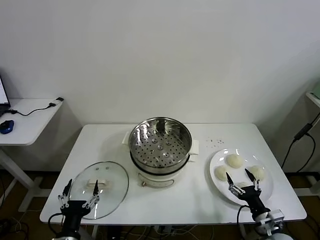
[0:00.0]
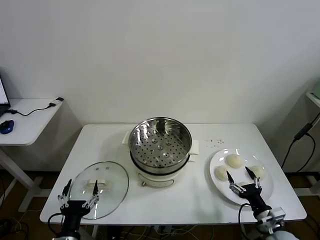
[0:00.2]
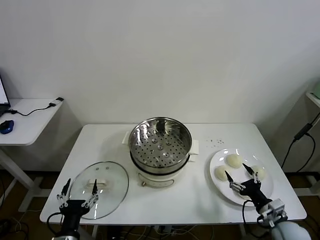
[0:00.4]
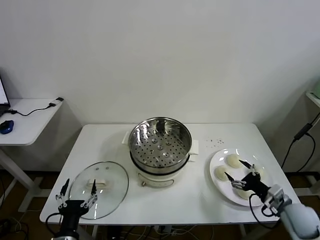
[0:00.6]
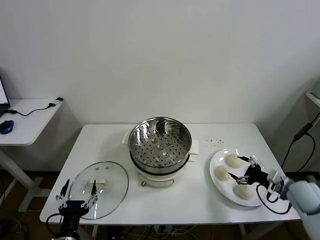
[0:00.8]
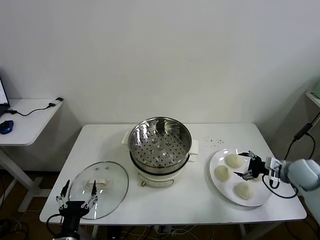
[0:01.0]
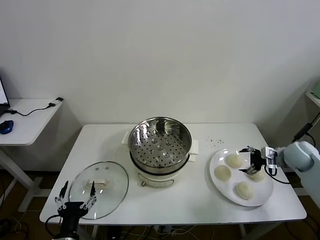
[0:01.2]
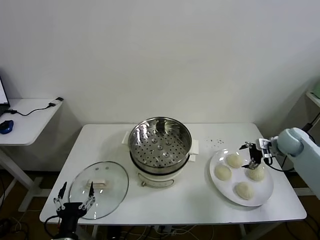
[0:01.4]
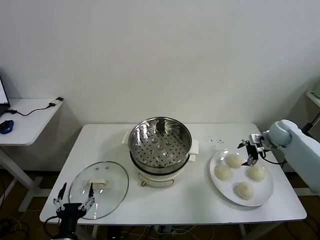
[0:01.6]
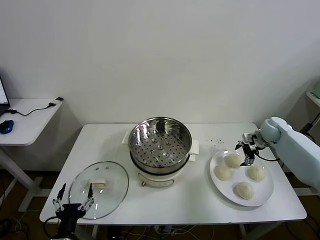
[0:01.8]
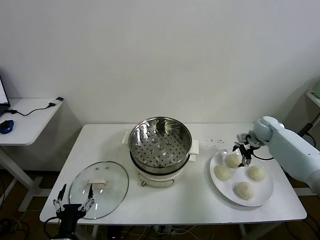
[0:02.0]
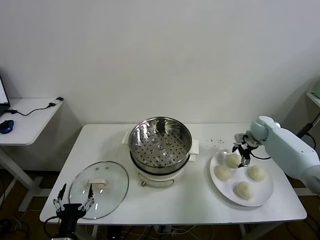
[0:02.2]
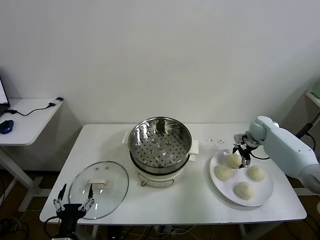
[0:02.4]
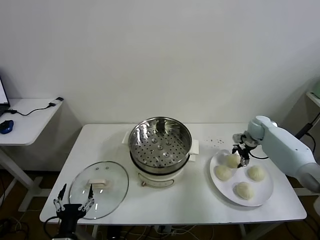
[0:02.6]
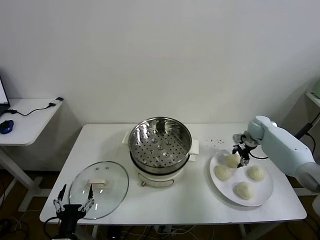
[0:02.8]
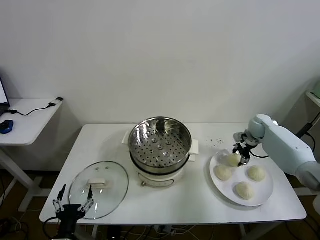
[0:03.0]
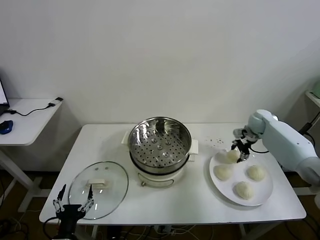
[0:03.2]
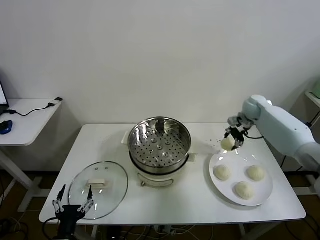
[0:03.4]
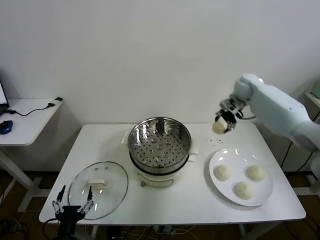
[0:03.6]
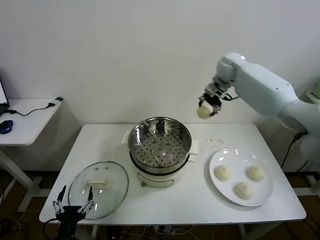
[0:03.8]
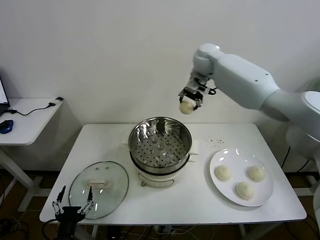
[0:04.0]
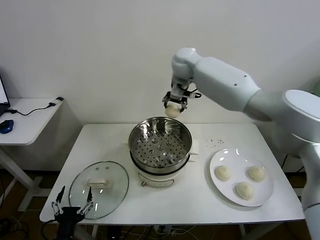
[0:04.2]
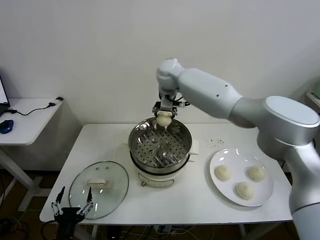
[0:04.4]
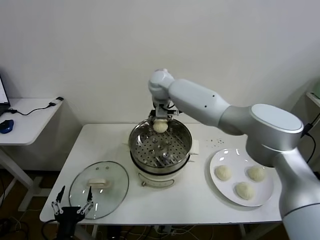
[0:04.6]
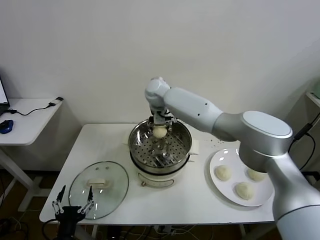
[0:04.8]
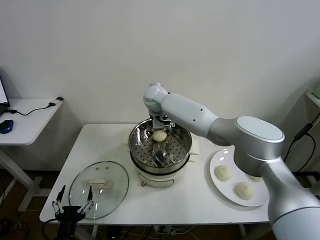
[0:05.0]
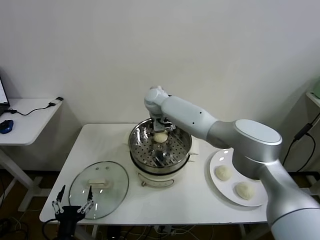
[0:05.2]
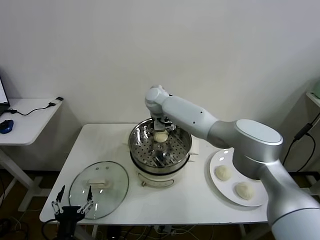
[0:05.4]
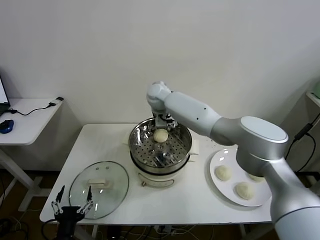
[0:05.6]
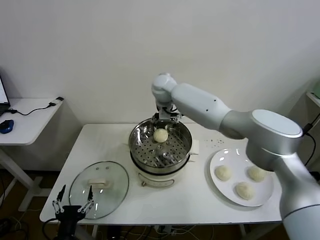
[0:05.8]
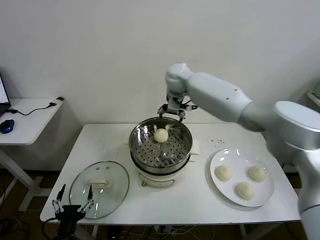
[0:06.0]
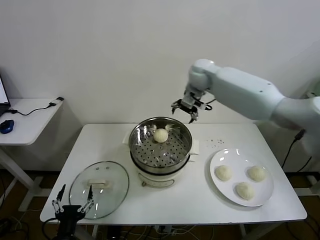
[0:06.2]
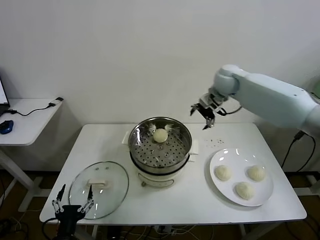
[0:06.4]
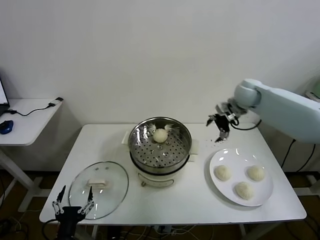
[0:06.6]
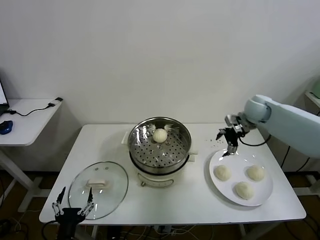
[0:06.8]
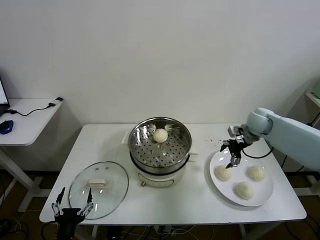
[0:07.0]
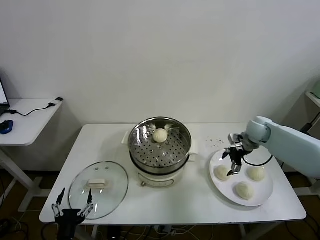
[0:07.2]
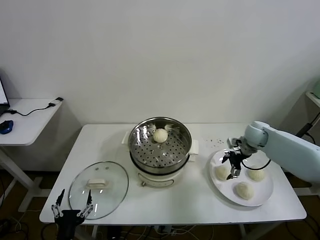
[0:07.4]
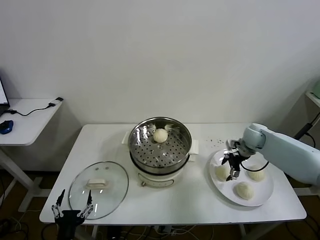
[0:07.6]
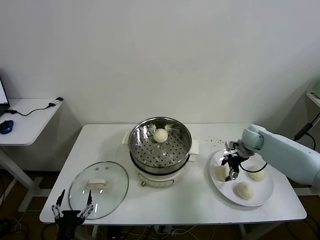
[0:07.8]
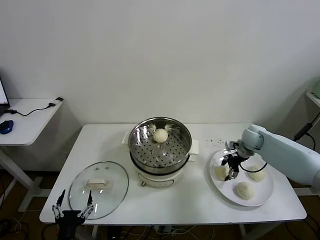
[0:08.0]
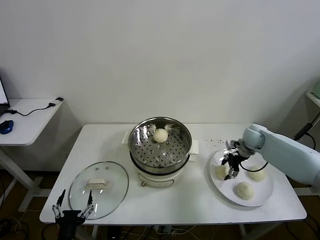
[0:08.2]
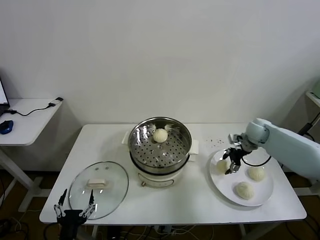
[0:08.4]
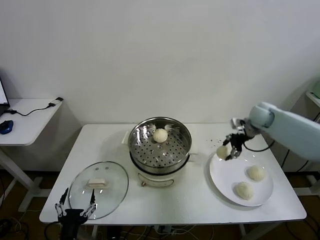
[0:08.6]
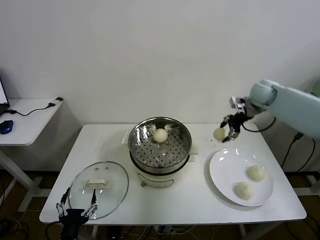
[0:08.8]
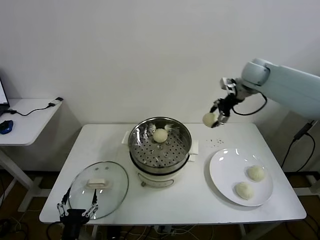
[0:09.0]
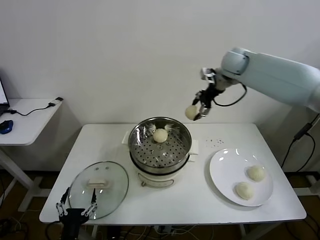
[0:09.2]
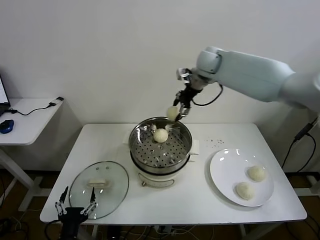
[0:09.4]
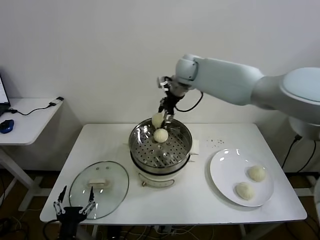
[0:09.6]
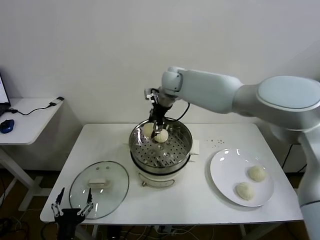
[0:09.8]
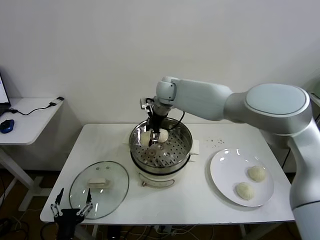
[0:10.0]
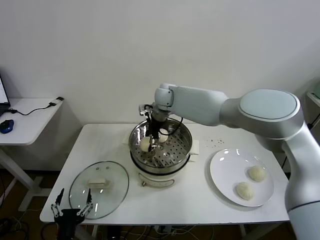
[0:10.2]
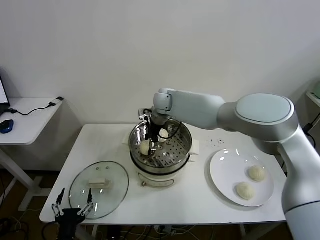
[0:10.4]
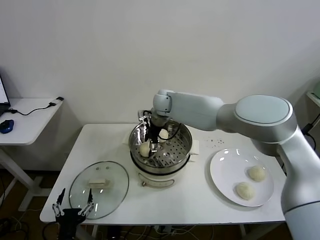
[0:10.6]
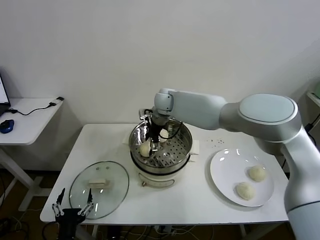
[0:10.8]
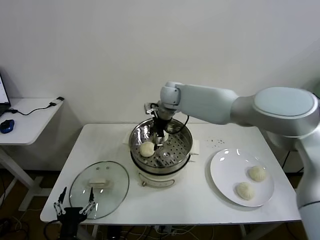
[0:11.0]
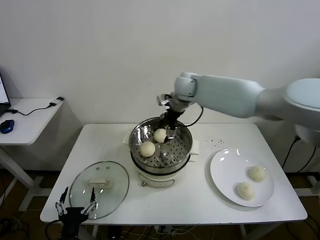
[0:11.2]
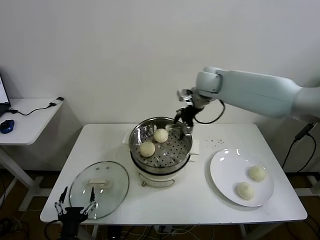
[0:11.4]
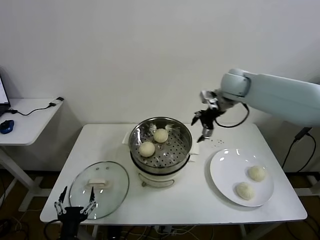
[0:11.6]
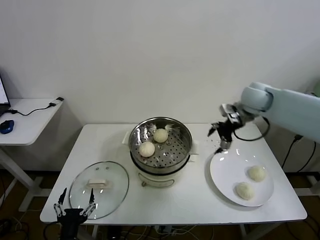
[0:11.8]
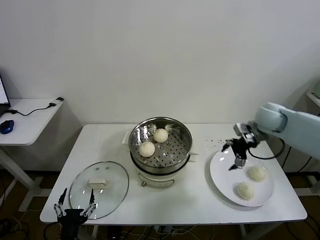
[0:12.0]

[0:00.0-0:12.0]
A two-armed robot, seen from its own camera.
Task of the whole recording: take steamed baozi put them in steamer then cover it.
Step, 0.0 to 3.0 s: Grasp the baozi in the plate with right gripper.
Step, 3.2 to 5.2 s: Place the baozi on the steamer with right gripper.
Step, 5.4 to 8.0 s: Grasp the baozi in the plate with right gripper.
Step, 8.2 to 10.8 s: Place the baozi on the steamer with right gripper.
1.6 to 3.0 s: The right gripper moves forward, some 5 cm, and closes up.
3.0 to 4.4 s: The right gripper goes some 50 cm to the left and upward.
4.4 to 6.0 s: The right gripper heads to the right, covering approximately 10 cm, and opens up.
6.0 to 7.6 s: The right gripper is displaced to the right and downward by about 35 cm.
7.6 to 9.0 s: The right gripper shifts roughly 25 cm upward, and closes up.
9.0 to 10.4 s: The right gripper moves to the left and downward, approximately 30 cm.
10.4 to 12.0 s: The right gripper shifts about 35 cm to the right, and opens.

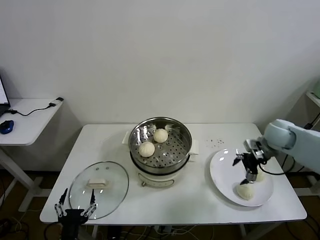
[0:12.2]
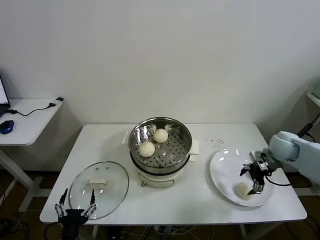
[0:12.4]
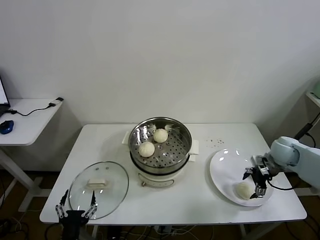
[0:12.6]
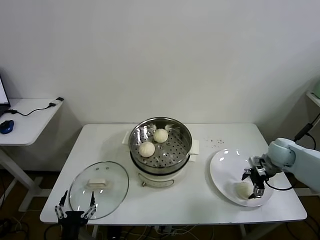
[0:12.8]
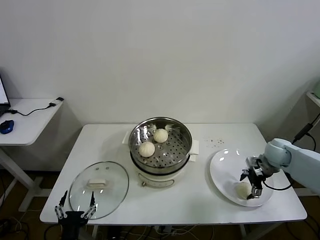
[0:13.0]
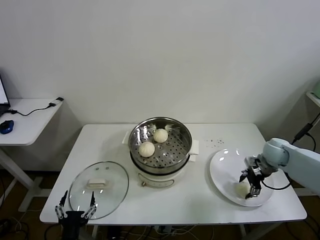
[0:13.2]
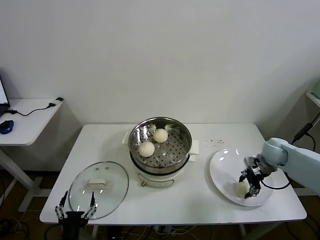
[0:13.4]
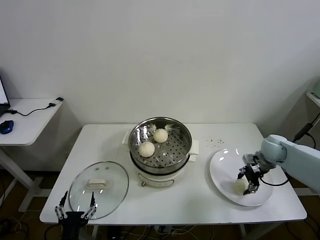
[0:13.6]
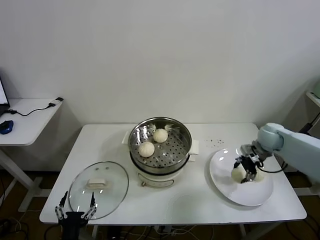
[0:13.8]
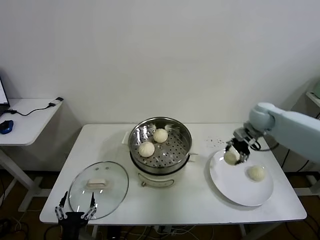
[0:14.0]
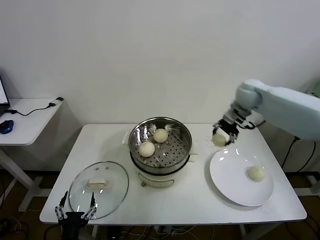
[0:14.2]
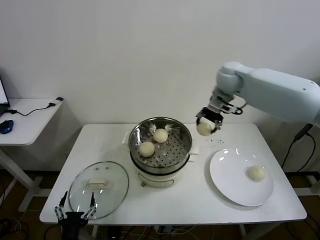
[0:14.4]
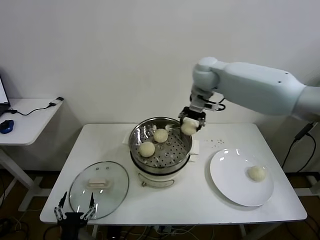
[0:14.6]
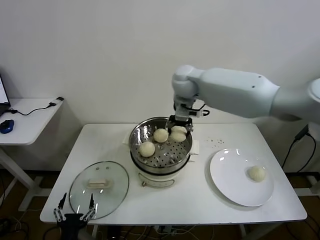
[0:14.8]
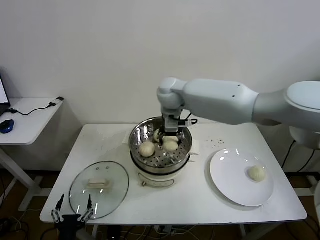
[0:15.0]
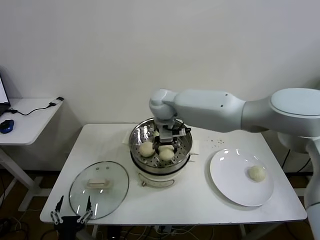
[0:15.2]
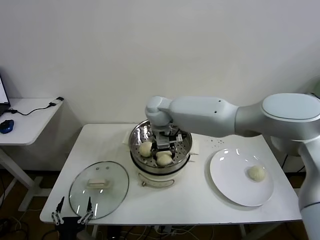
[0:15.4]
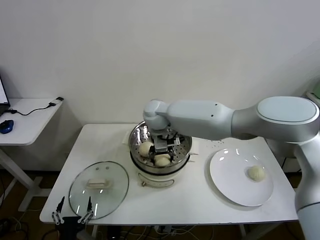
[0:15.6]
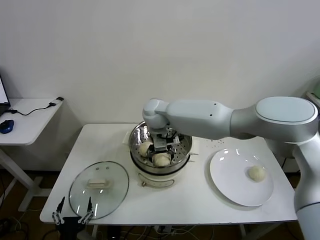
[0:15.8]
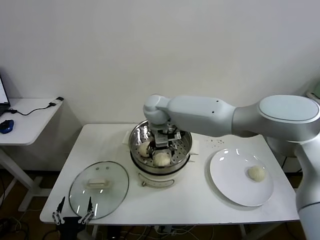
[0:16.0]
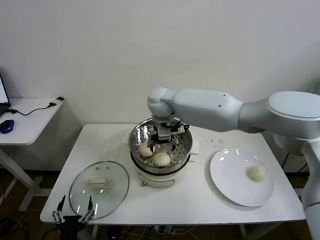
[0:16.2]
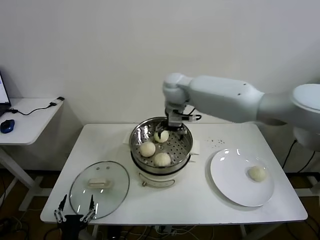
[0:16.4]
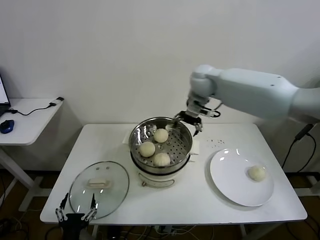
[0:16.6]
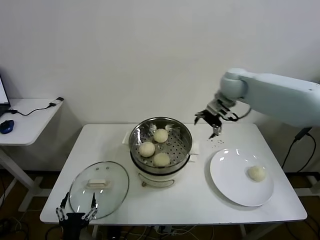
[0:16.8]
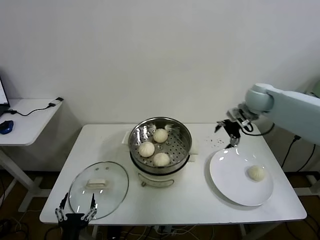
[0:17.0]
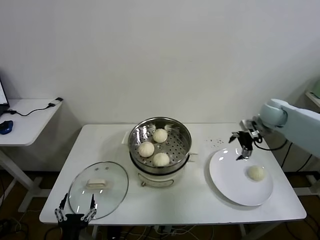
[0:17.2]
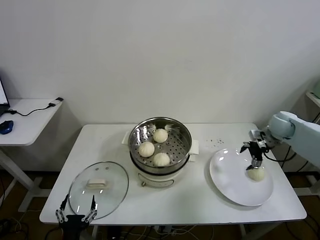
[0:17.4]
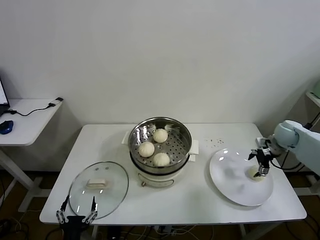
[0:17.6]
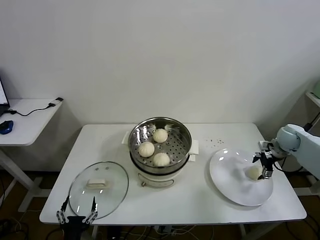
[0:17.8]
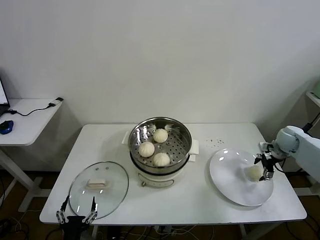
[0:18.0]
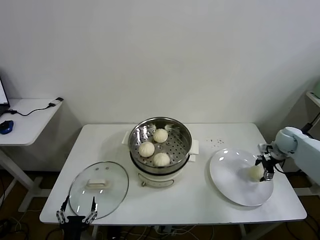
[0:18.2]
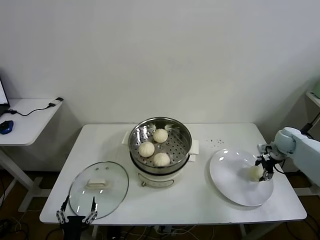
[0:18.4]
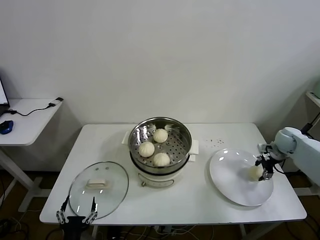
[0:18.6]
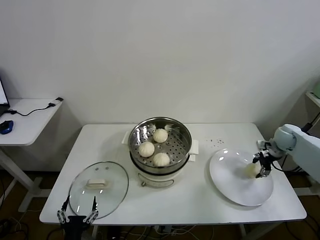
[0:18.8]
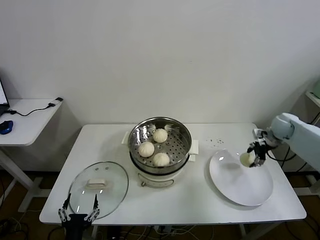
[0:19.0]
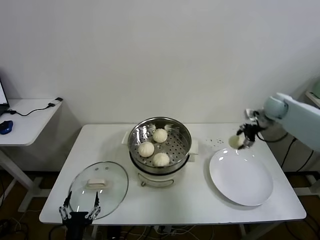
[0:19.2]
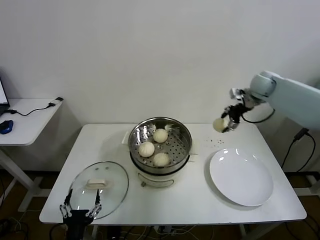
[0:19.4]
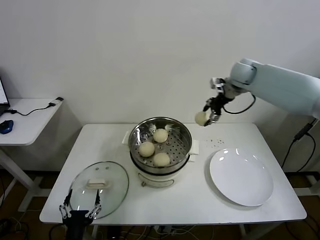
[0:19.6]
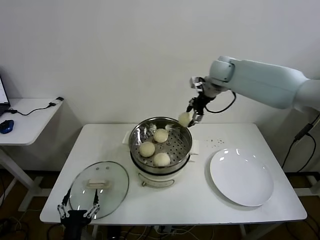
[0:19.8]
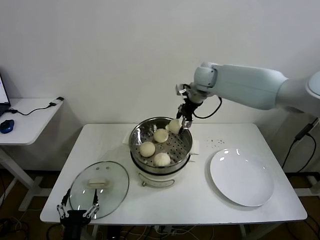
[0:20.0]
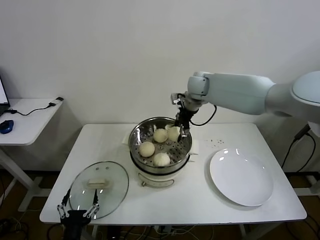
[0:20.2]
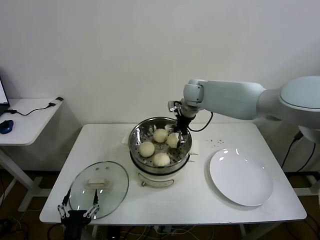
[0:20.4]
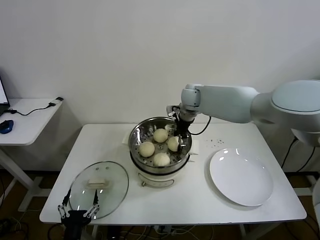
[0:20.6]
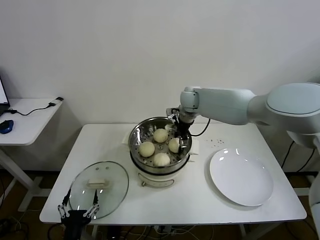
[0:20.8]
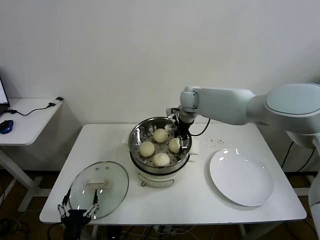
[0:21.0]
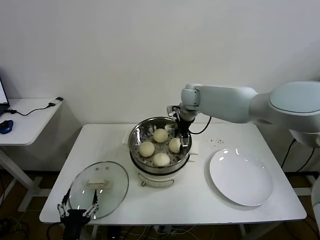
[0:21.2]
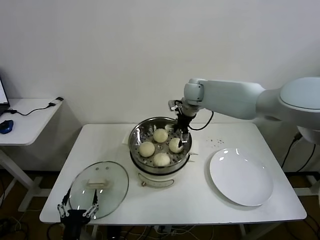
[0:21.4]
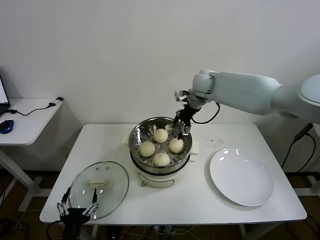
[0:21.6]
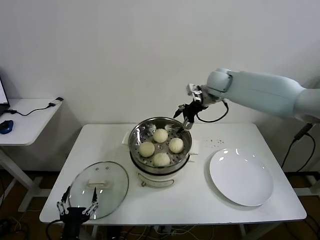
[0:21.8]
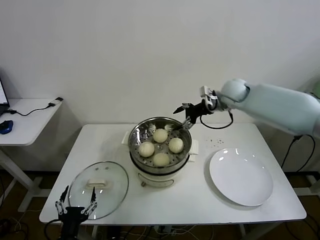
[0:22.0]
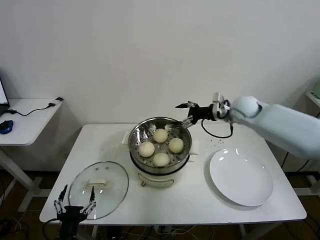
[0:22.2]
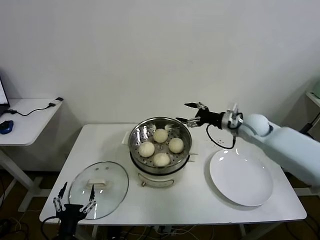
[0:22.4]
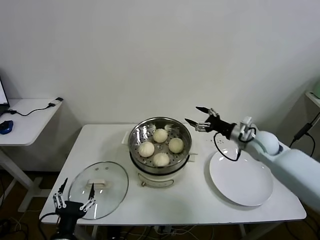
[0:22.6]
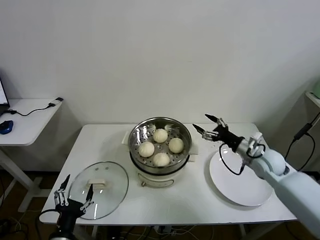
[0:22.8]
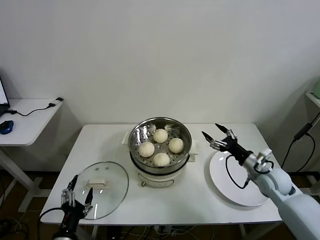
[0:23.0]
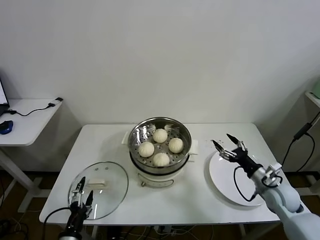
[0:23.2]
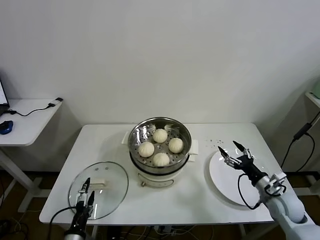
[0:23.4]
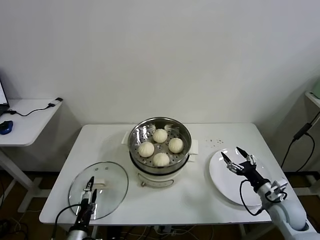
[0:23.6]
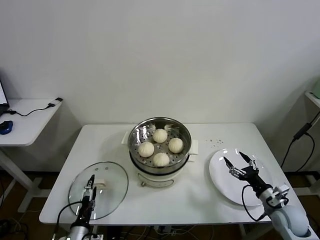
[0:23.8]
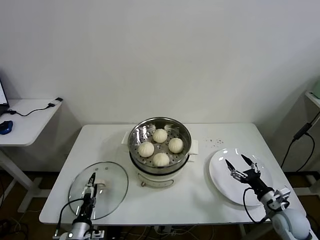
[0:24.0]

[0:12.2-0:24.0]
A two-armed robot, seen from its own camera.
Task of the whole recording: take steamed baozi put them in steamer then cover it.
Step, 13.6 to 15.8 s: Place the baozi on the steamer with right gripper.
Step, 16.0 to 18.6 s: Grasp the baozi in the plate with right gripper.
Step, 18.8 to 21.2 s: Place the baozi on the steamer with right gripper.
12.2 to 13.6 s: The right gripper goes roughly 5 cm downward, and closes its fingers.
13.6 to 15.2 s: The right gripper moves to the left, some 40 cm.
15.2 to 16.6 s: The right gripper travels to the right and upward by roughly 15 cm, and opens.
16.6 to 18.2 s: The right gripper is displaced to the right and downward by approximately 40 cm.
18.2 to 19.6 s: The right gripper goes about 35 cm upward, to the left and forward, and closes its fingers.
19.6 to 21.0 s: The right gripper heads to the left and downward, covering roughly 20 cm, and opens.
21.0 to 22.6 s: The right gripper heads to the right, backward and downward, covering some 30 cm.
22.6 to 24.0 s: The left gripper heads downward and forward, covering roughly 15 cm. The right gripper goes roughly 25 cm backward and downward.
